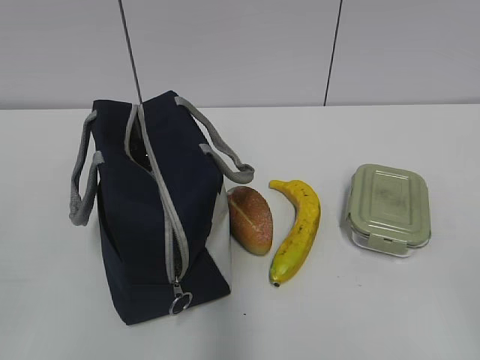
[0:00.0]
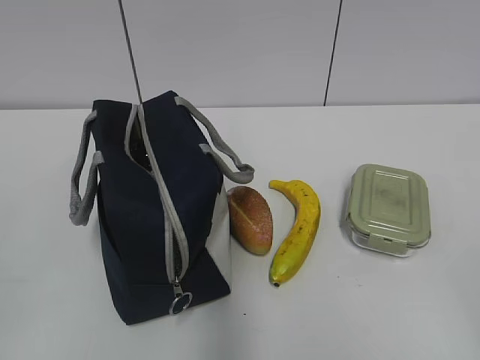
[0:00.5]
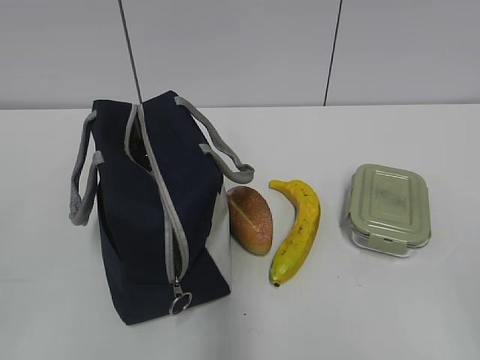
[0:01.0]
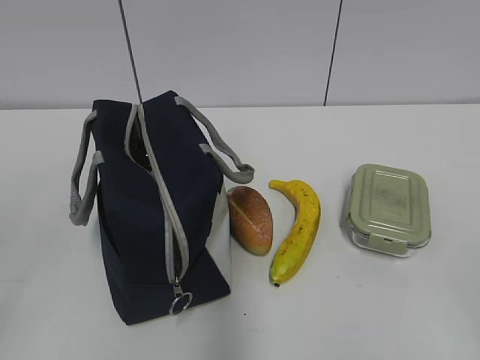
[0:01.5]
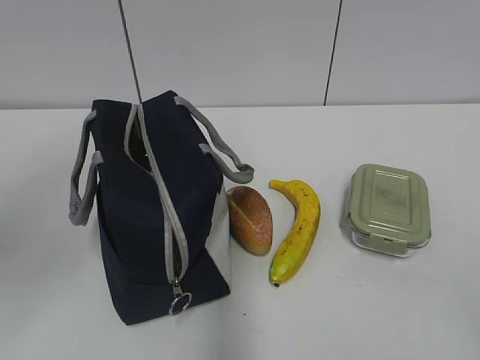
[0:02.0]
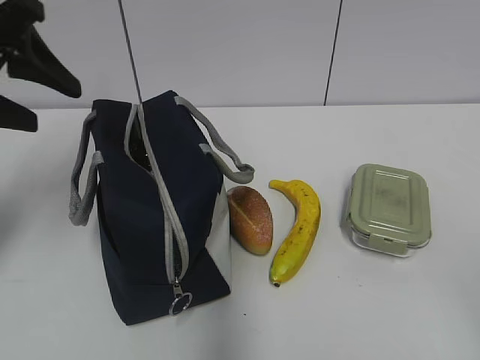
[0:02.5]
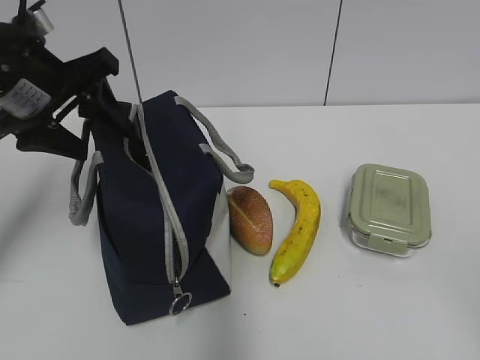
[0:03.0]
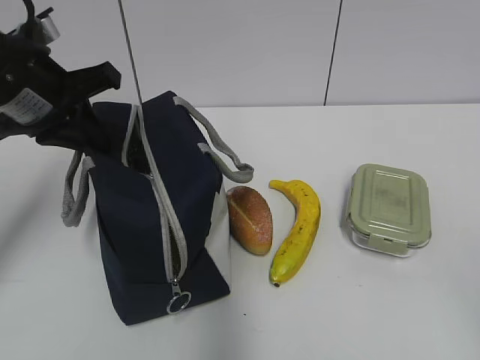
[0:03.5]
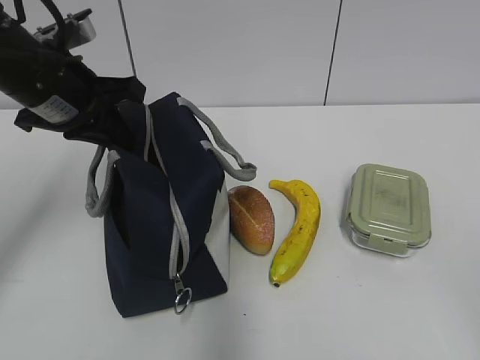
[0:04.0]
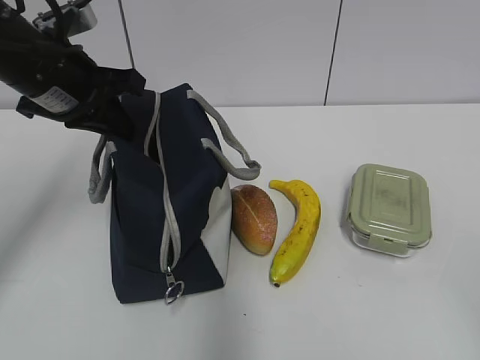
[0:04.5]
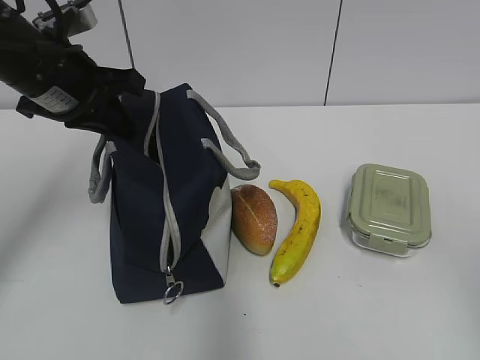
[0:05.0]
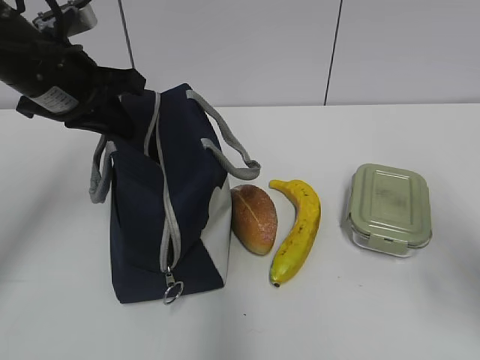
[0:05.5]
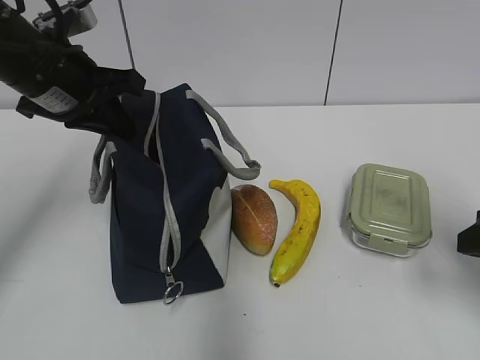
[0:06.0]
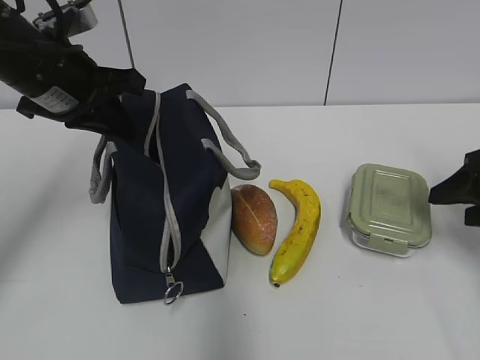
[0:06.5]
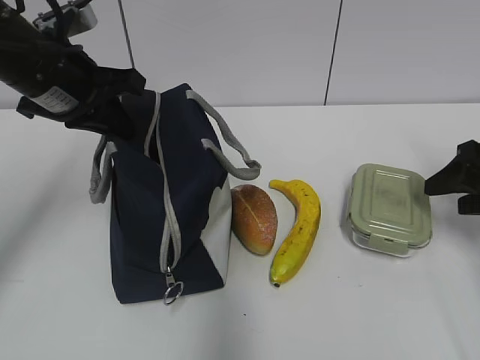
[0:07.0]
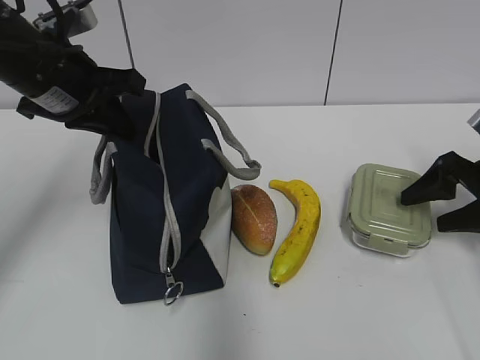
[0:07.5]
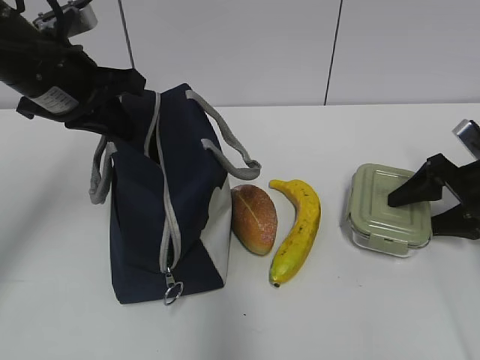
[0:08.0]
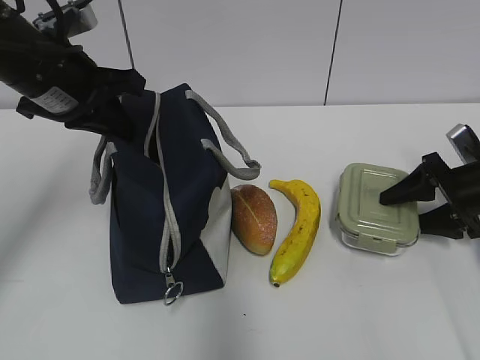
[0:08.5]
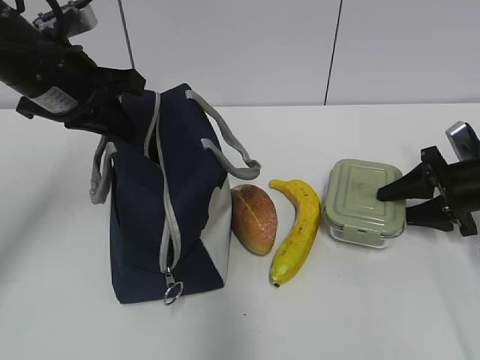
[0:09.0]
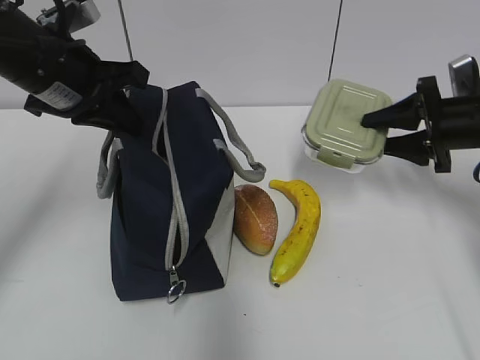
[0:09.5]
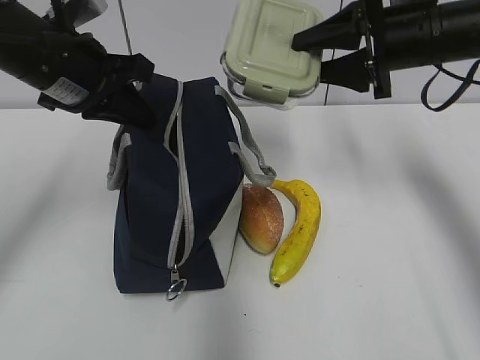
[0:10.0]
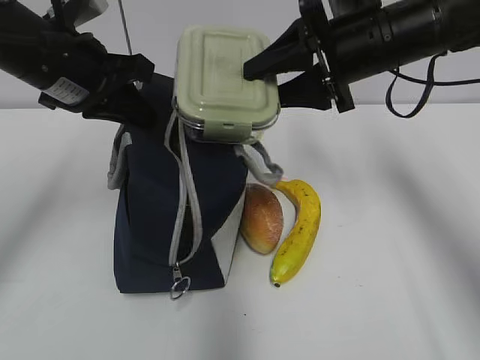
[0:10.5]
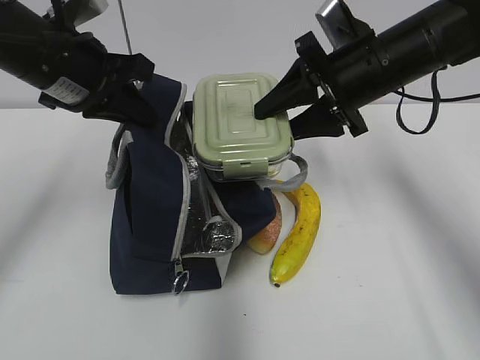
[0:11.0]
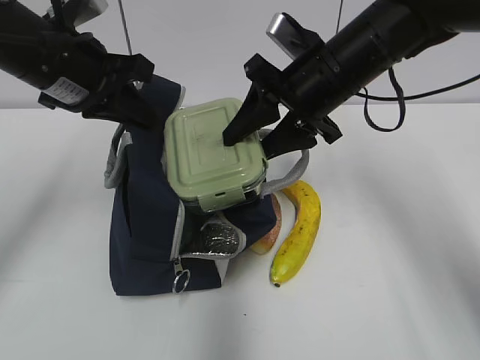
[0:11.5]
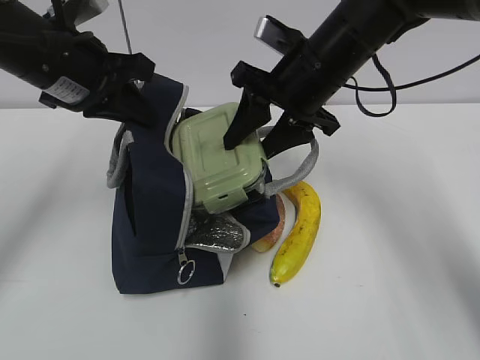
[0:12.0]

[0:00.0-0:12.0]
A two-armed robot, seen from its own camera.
0:02.0 to 0:04.0: The left gripper goes some 20 cm forward, downward and to the right, and closes.
0:04.0 to 0:06.0: The right gripper moves forward, roughly 20 cm.
0:06.0 to 0:08.0: The right gripper moves forward and downward, some 15 cm.
0:08.0 to 0:10.0: The right gripper travels upward and to the left by some 20 cm, and closes up.
0:10.0 to 0:12.0: The right gripper heads to the left, covering approximately 10 cm.

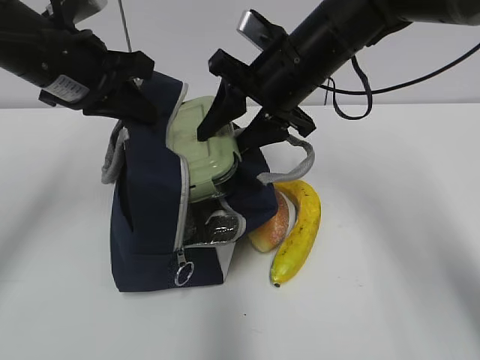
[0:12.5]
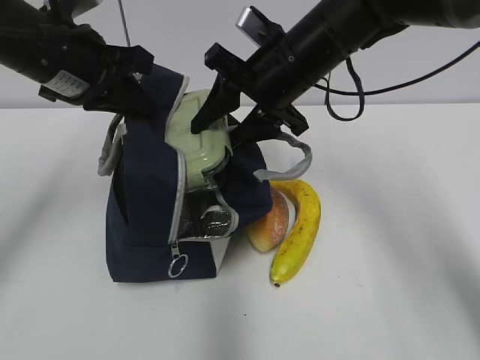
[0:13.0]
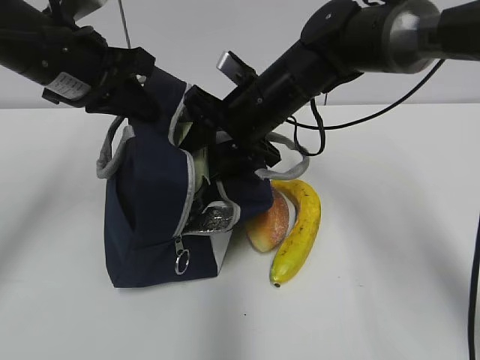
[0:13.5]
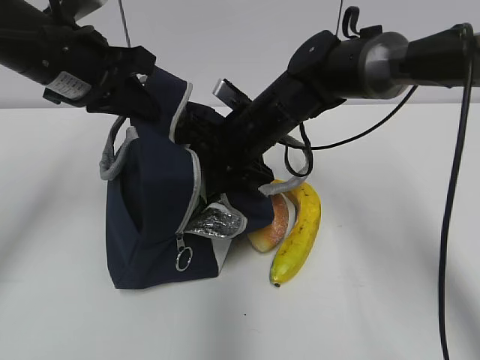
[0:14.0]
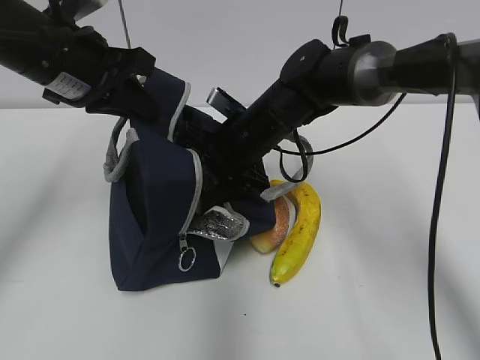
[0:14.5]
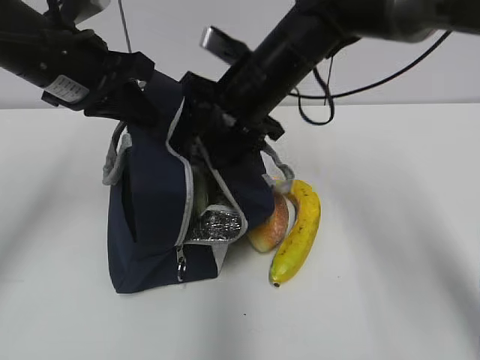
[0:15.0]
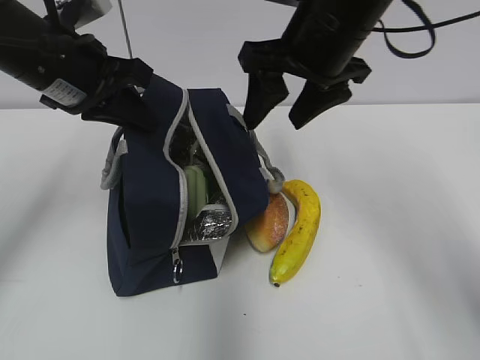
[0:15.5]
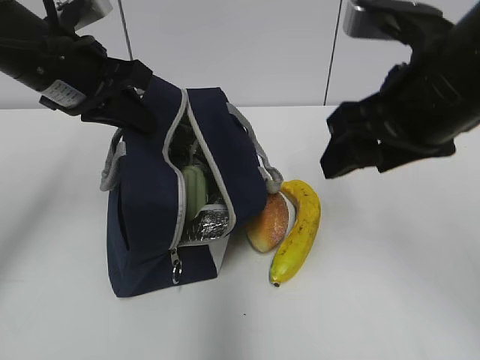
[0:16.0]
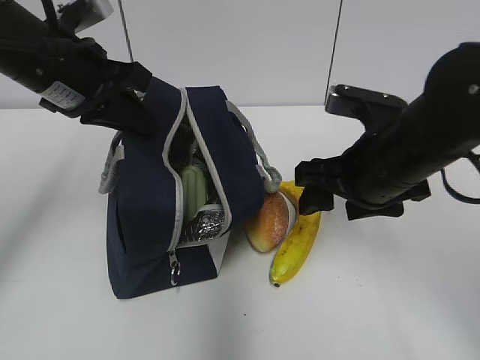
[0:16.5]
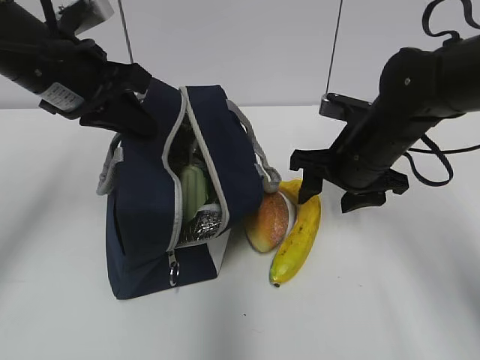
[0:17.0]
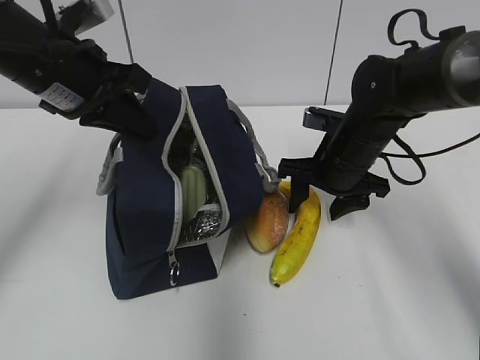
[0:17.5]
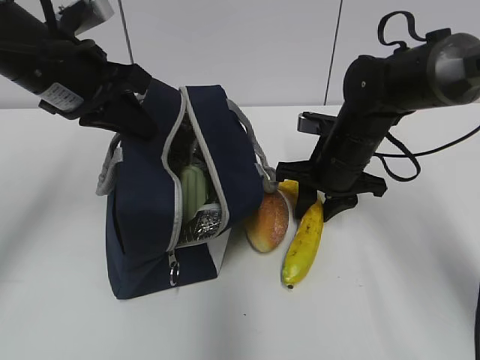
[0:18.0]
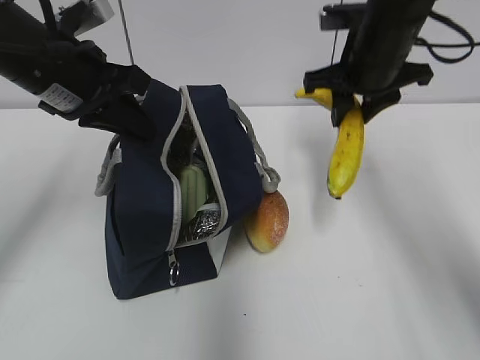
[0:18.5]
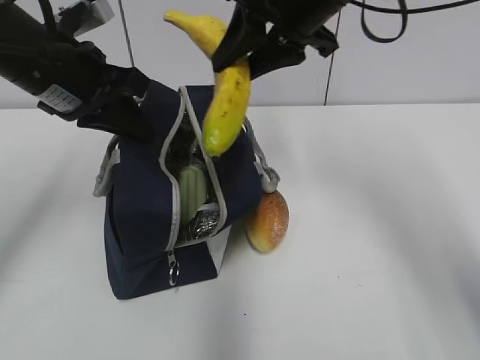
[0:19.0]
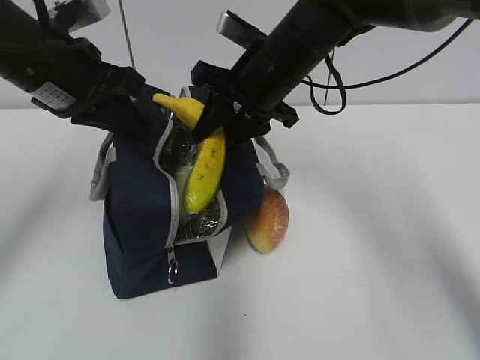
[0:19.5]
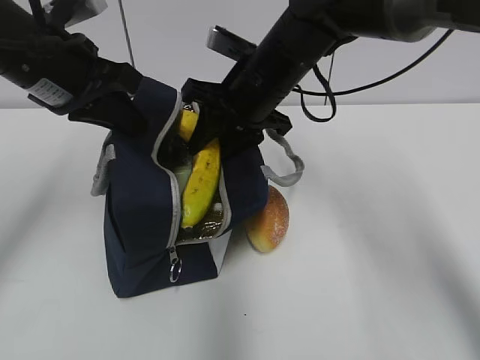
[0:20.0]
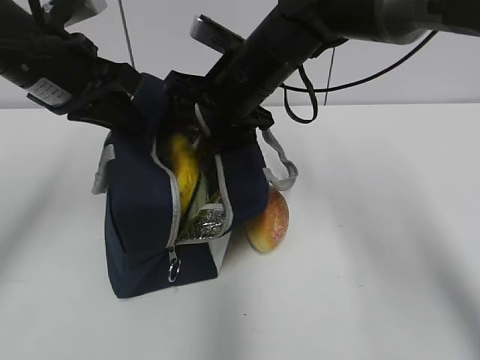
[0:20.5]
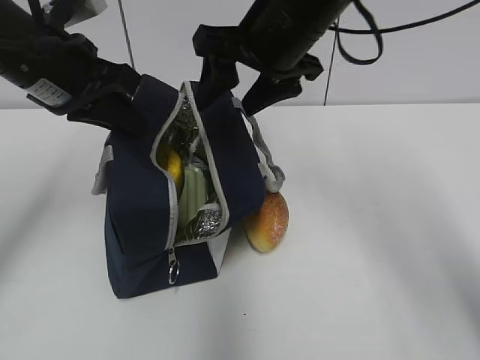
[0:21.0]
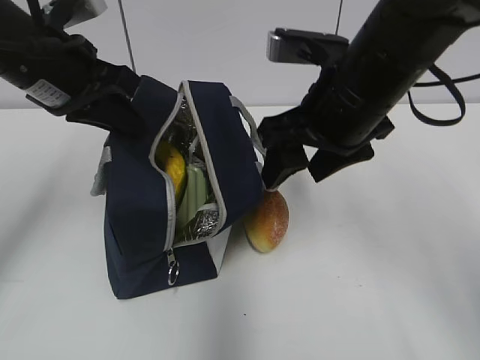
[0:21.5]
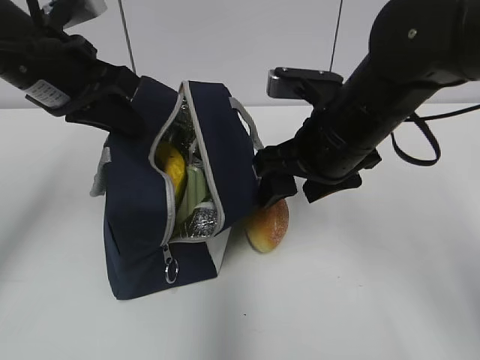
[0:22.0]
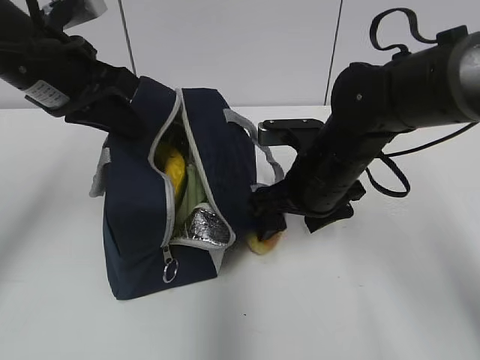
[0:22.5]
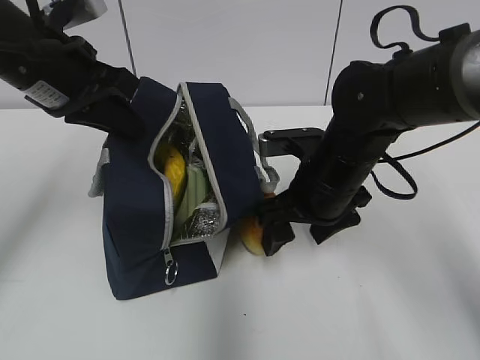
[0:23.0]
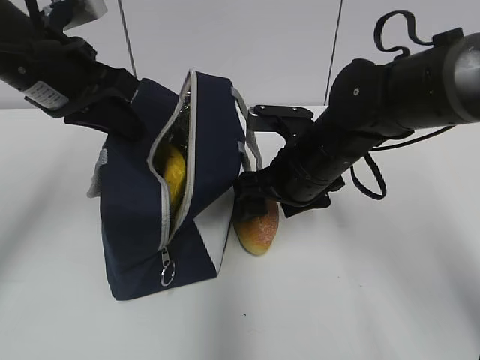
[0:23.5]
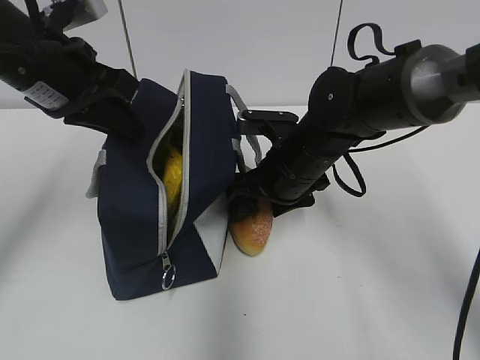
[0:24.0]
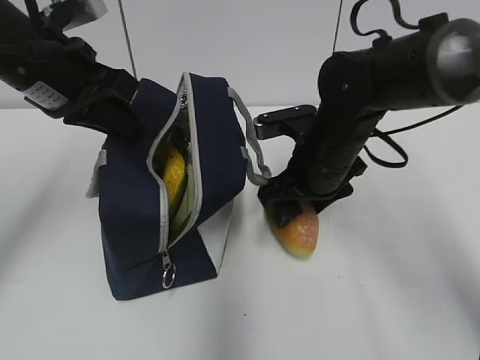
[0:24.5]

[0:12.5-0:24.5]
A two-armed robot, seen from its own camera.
0:12.5 to 0:14.5: The right gripper moves downward, approximately 10 cm.
0:14.5 to 0:16.5: The right gripper heads backward and to the right, covering some 15 cm, and moves roughly 15 cm upward and comes back.
0:16.5 to 0:18.5: The right gripper moves forward, roughly 10 cm, and closes its fingers.
0:18.5 to 0:20.5: The right gripper goes roughly 15 cm to the left, and opens its fingers.
0:20.5 to 0:22.5: The right gripper goes approximately 10 cm downward, to the right and backward.
0:22.5 to 0:24.5: The grippers make only small movements.

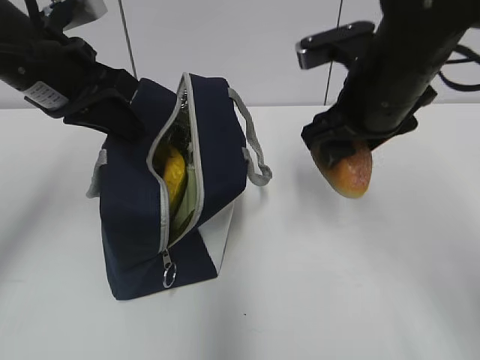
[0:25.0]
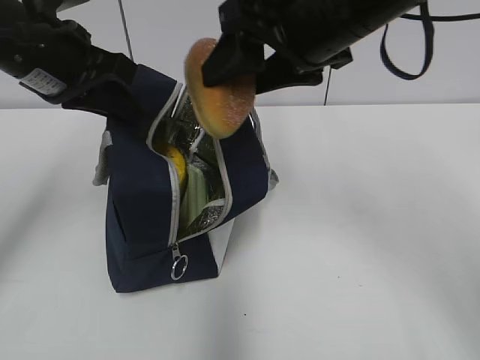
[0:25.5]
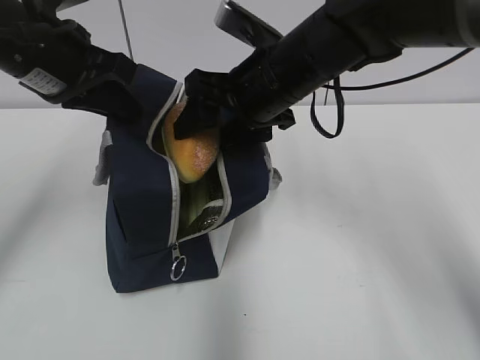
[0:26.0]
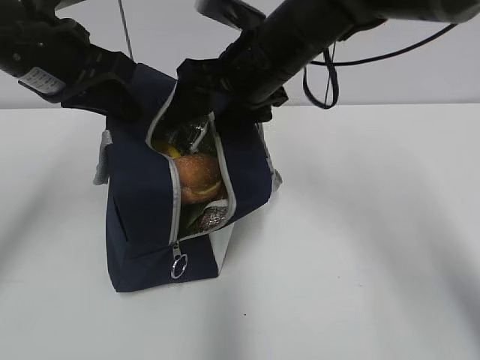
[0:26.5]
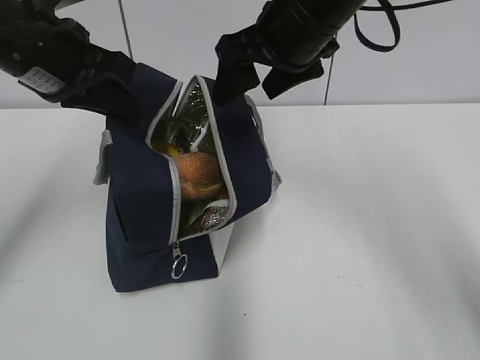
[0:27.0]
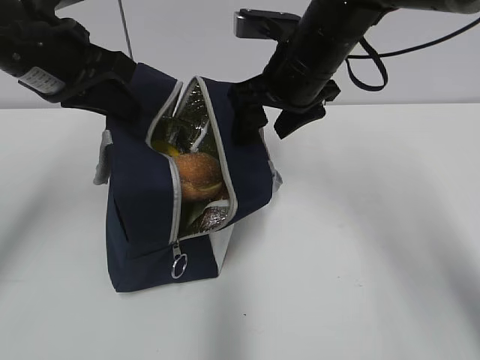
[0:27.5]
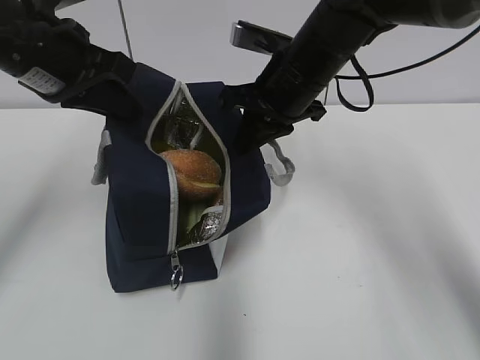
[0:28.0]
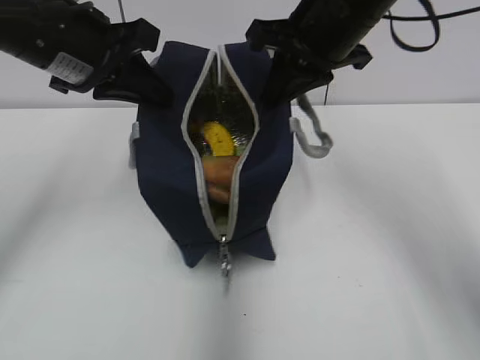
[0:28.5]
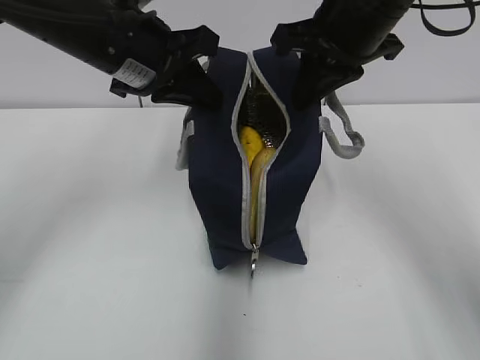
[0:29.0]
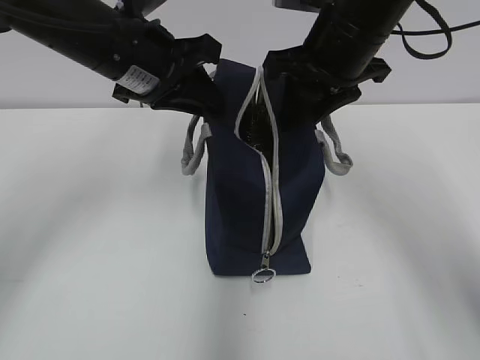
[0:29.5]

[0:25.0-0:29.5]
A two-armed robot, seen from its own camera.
0:25.0 to 0:27.0: The right gripper goes some 10 cm to the left and upward.
0:27.0 to 0:29.5: The left gripper goes some 5 cm to the right, while the right gripper moves approximately 5 cm downward and comes back, and closes its fingers.
